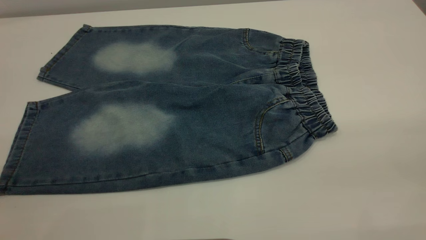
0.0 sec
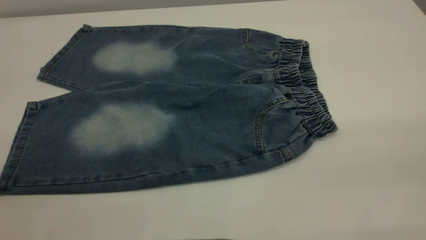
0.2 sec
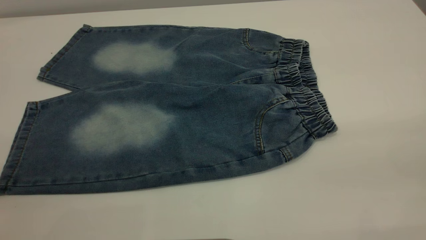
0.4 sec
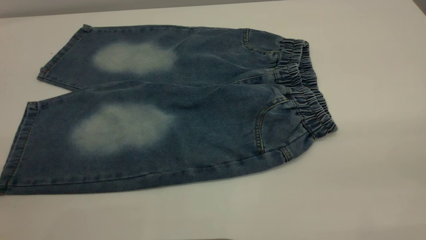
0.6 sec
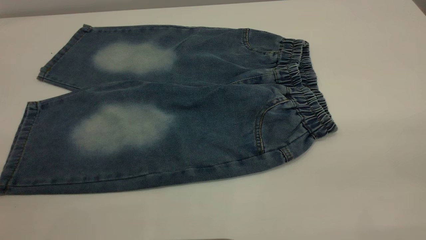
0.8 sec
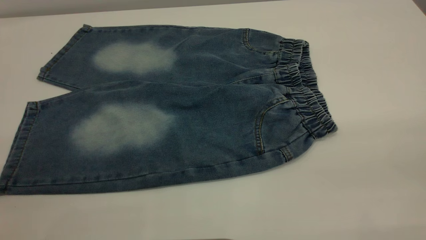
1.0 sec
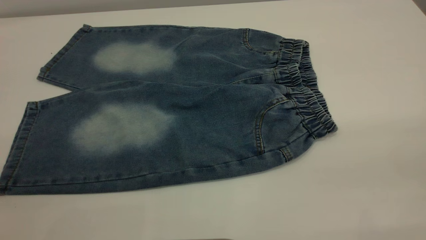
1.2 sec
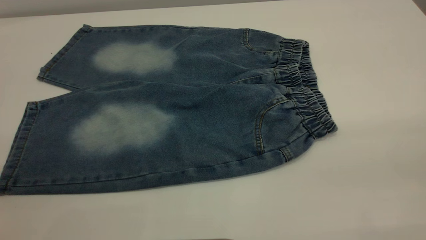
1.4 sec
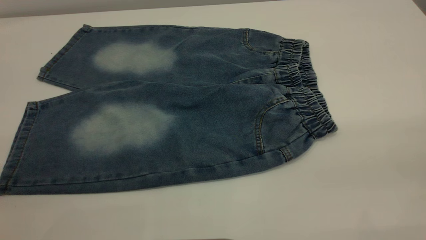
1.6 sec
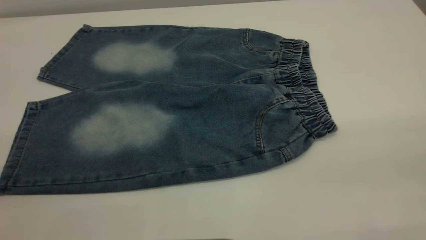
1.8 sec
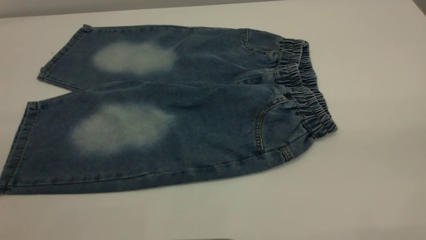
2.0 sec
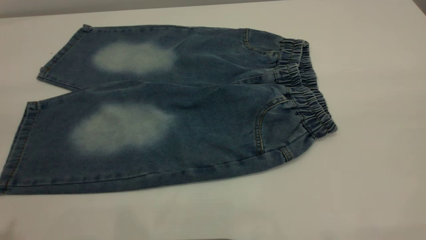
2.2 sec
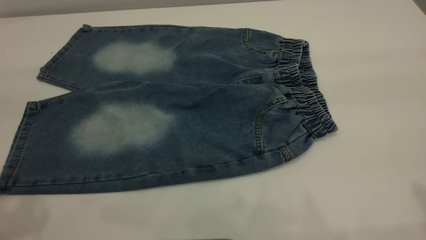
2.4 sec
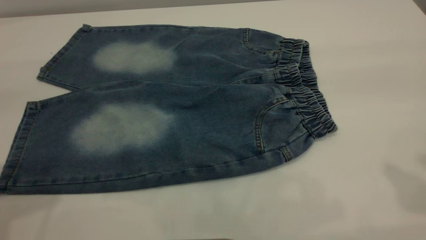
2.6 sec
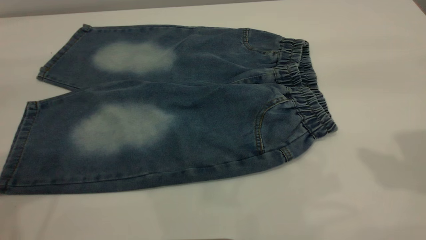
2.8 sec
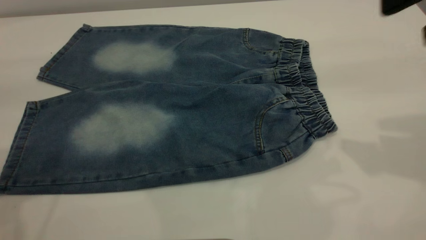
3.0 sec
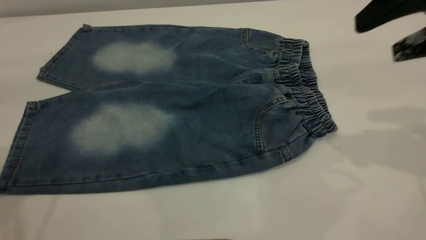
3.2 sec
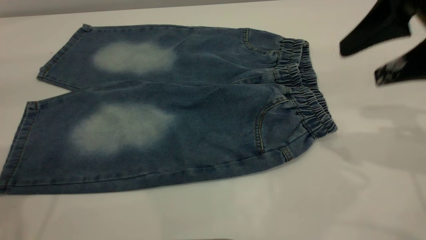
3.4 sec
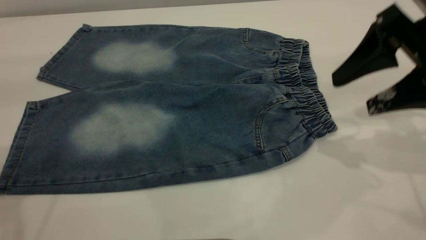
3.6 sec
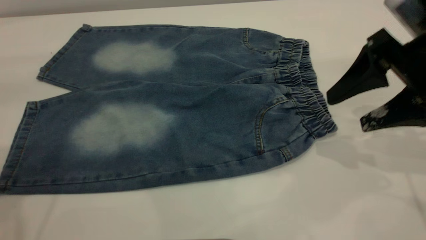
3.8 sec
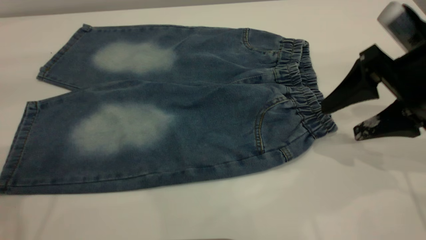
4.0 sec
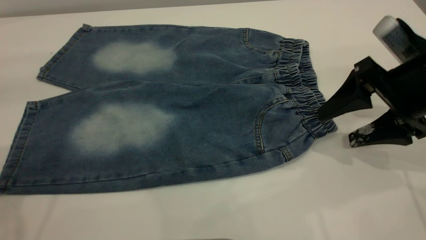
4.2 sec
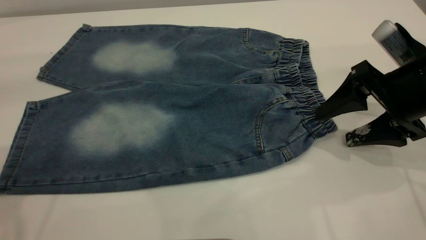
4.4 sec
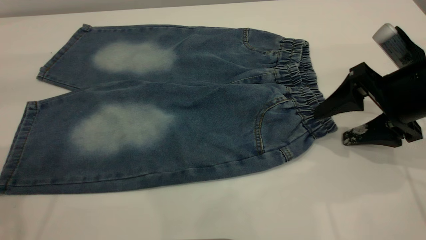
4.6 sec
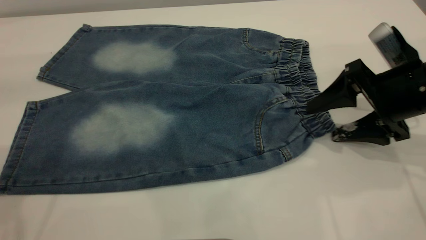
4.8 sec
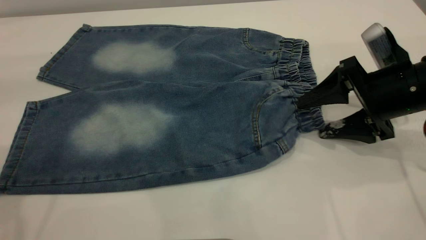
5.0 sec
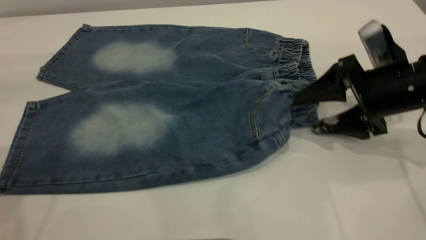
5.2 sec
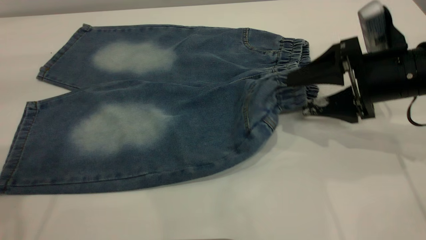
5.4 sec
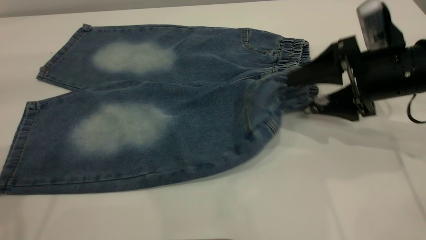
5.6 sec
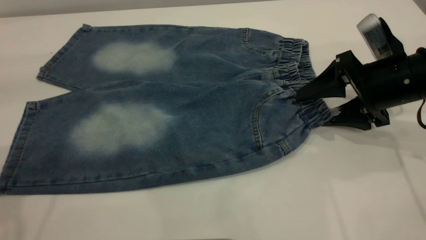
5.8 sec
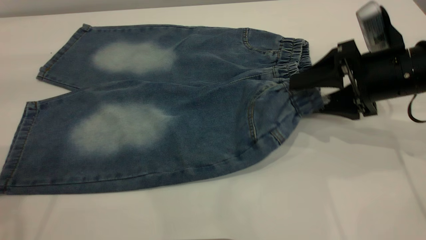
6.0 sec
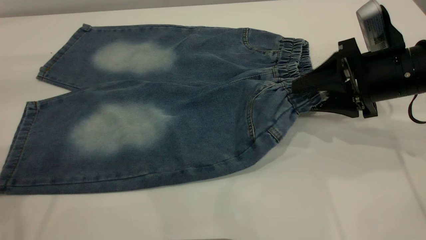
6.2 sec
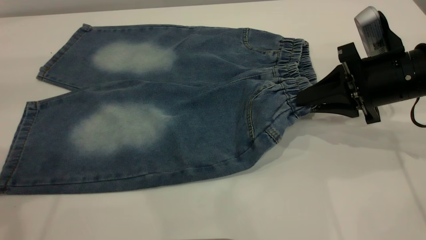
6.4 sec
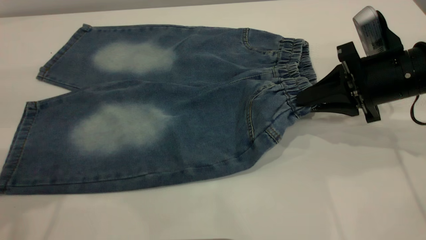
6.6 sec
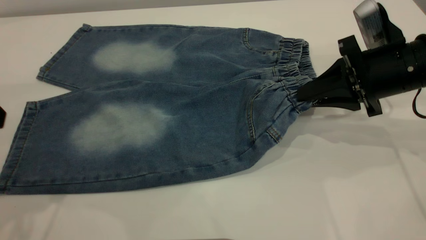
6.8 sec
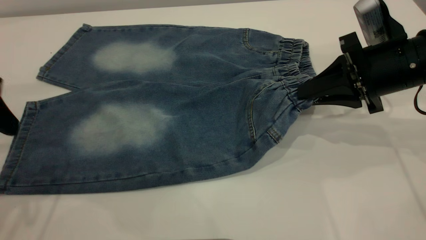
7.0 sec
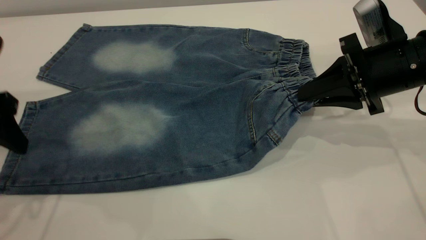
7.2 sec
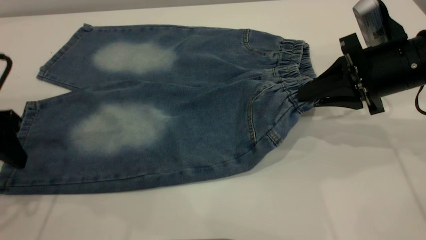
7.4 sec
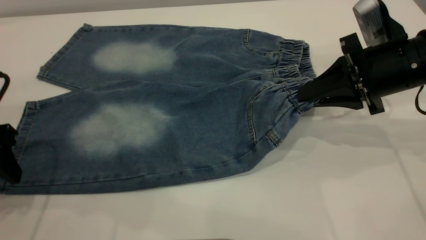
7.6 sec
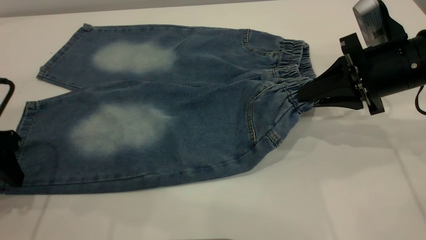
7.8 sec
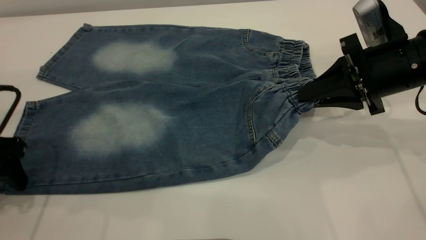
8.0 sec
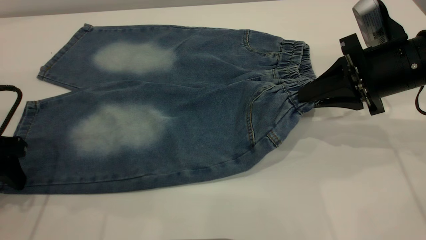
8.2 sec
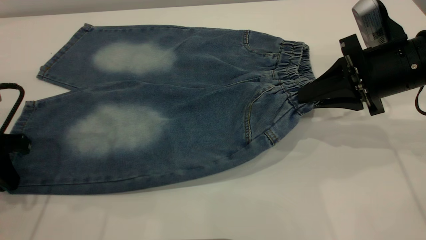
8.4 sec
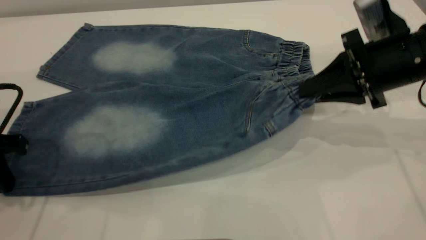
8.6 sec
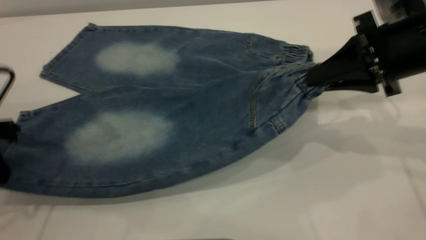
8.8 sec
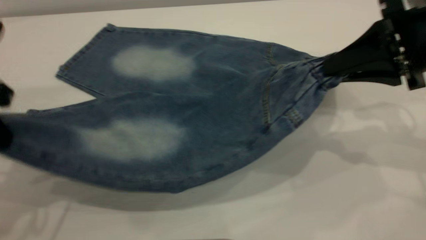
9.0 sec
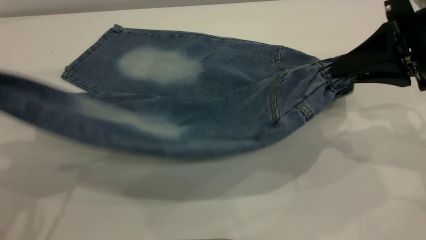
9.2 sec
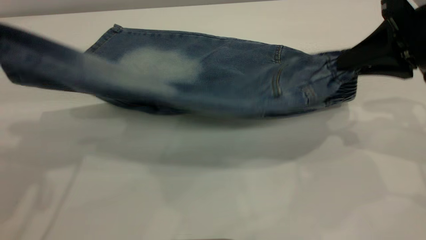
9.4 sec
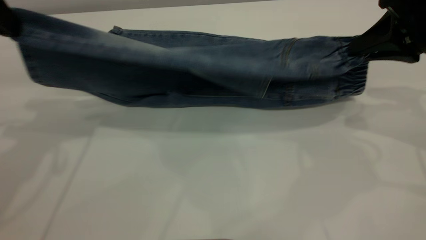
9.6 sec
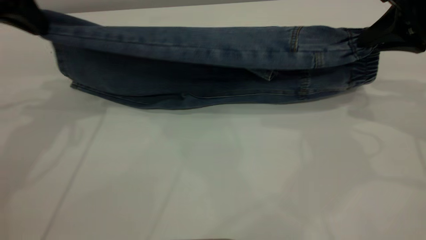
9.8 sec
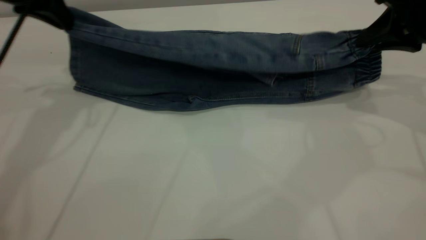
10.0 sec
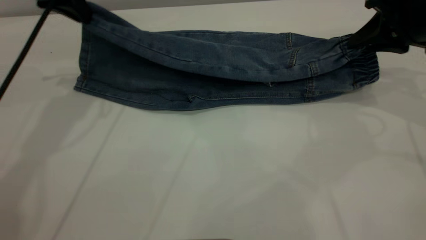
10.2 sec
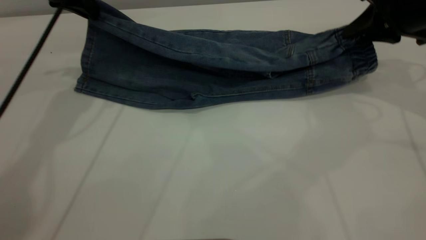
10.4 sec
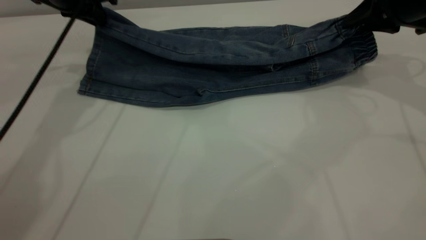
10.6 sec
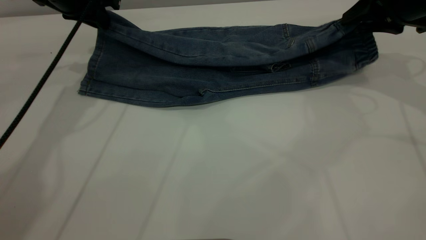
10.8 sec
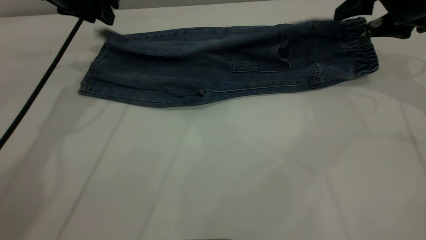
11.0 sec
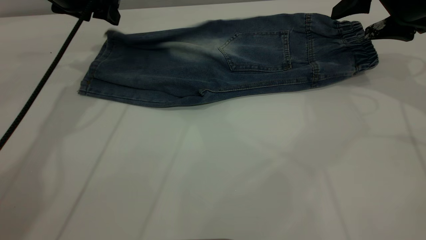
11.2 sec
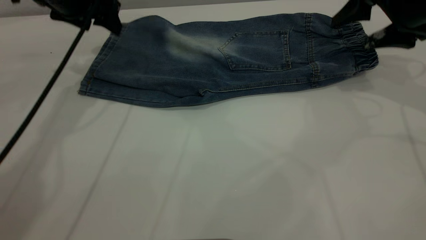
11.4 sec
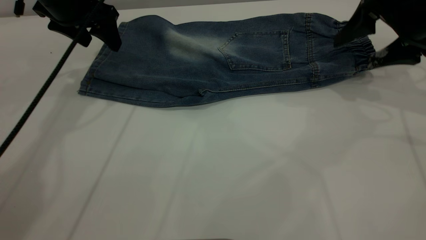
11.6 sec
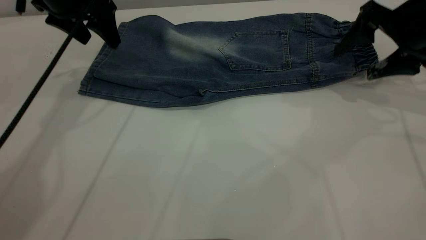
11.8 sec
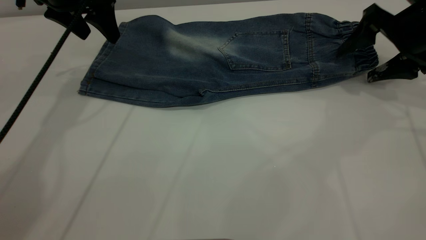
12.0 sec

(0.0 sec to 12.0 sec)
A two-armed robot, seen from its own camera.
Step, 0.0 sec - 11.6 sec: Fold the bottom of the pants upward.
0.0 sec - 1.6 sec: Both grippers stay about where they are.
3.0 sec - 4.4 sec: The right gripper heads downward, covering some 15 cm.
6.0 sec - 7.6 sec: The right gripper closes; the left gripper is displaced downward by some 20 cm.
7.6 sec - 9.0 sec: The grippers both shift upward by roughly 10 cm. The left gripper closes its fingers.
9.0 sec - 10.4 sec: The left gripper goes approximately 25 cm forward. The right gripper is displaced forward by roughly 10 cm.
10.4 sec - 12.0 sec: The right gripper opens, while the left gripper opens up.

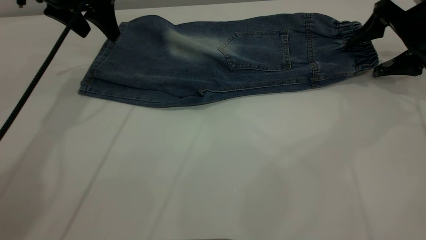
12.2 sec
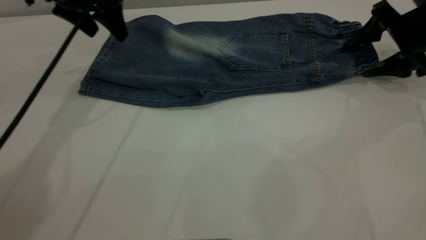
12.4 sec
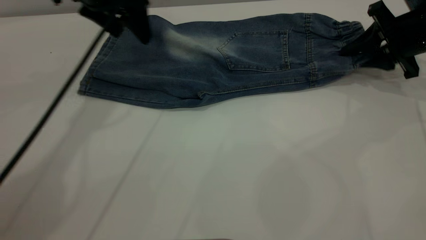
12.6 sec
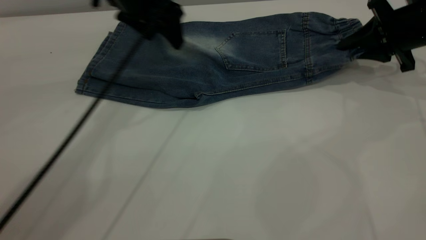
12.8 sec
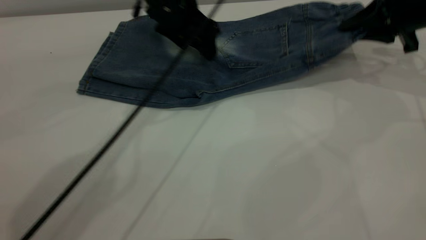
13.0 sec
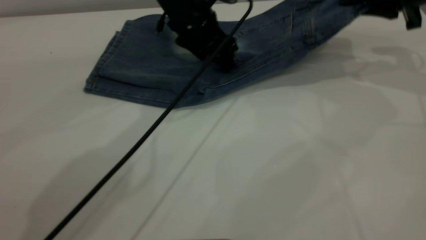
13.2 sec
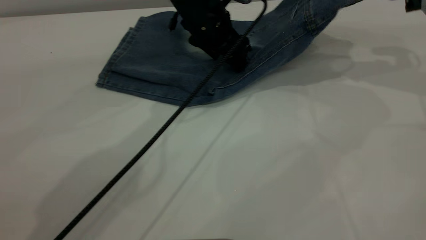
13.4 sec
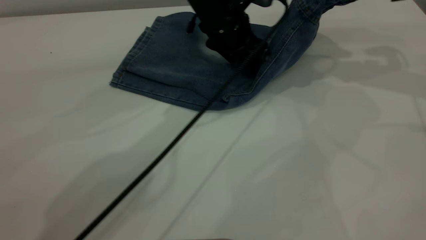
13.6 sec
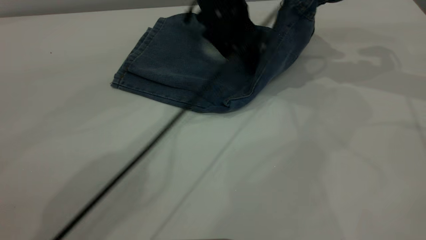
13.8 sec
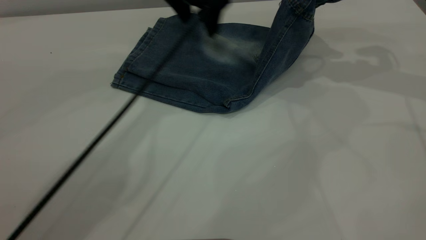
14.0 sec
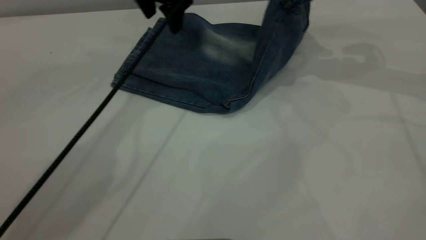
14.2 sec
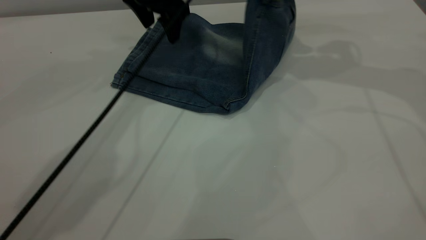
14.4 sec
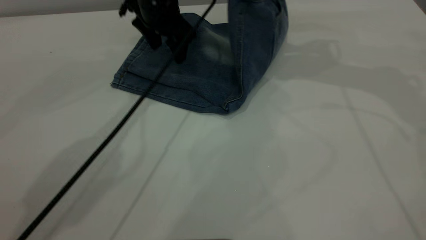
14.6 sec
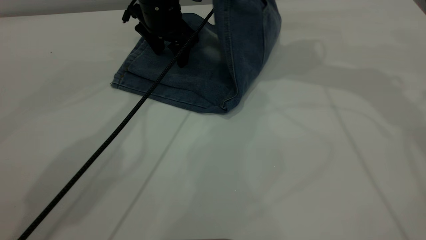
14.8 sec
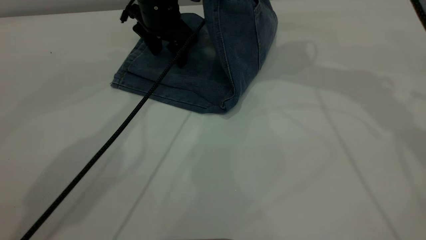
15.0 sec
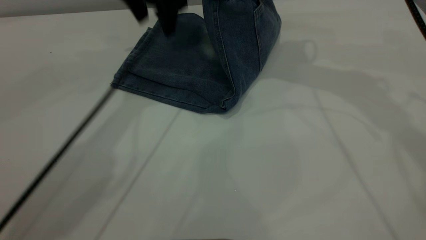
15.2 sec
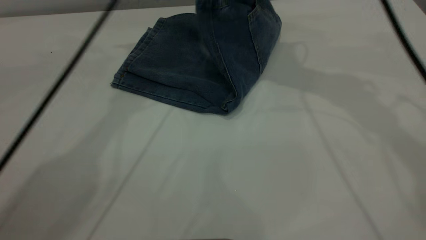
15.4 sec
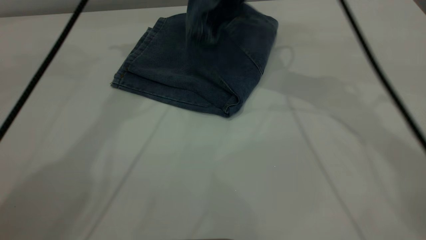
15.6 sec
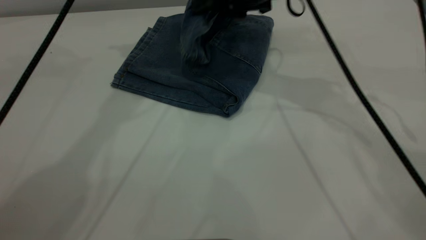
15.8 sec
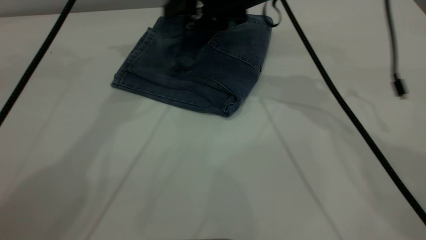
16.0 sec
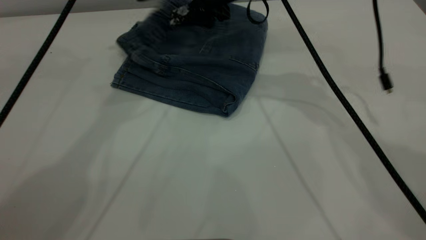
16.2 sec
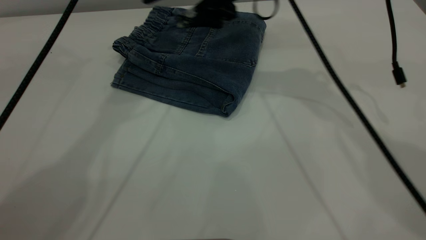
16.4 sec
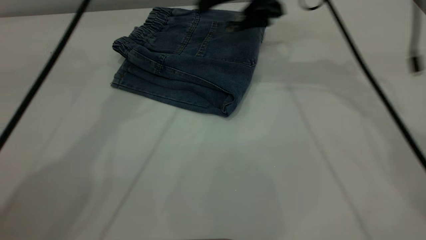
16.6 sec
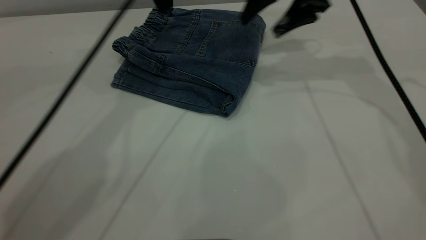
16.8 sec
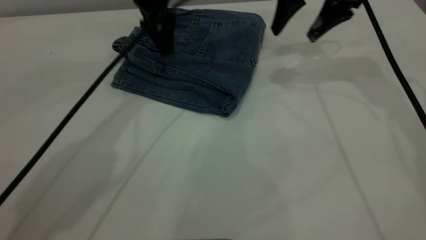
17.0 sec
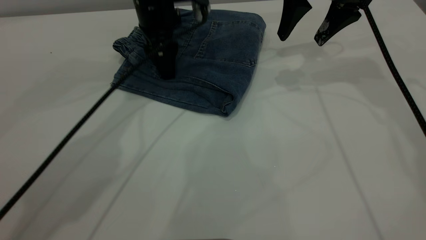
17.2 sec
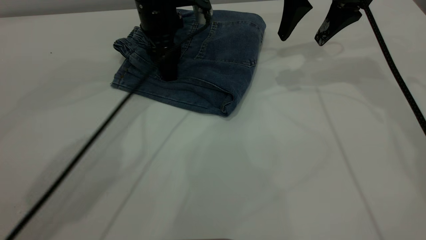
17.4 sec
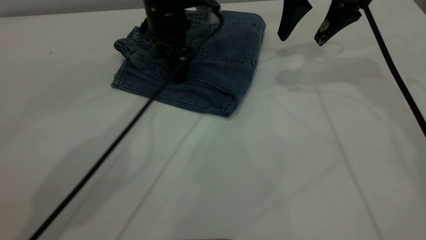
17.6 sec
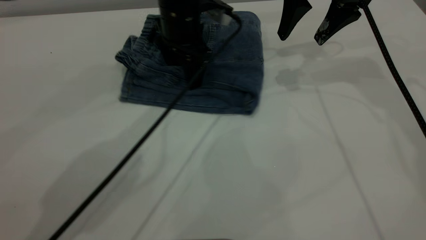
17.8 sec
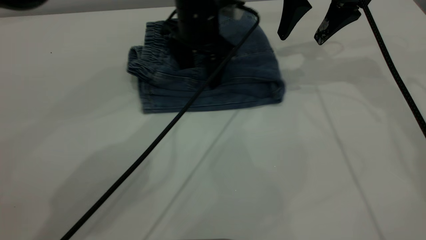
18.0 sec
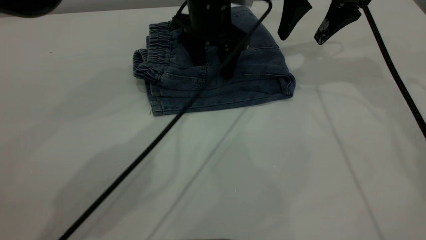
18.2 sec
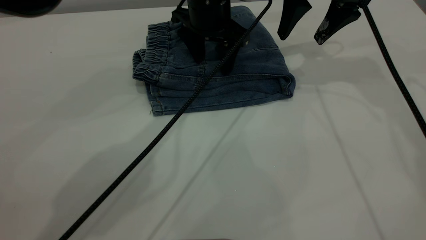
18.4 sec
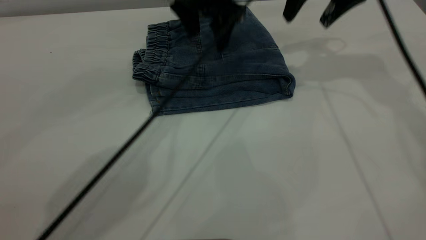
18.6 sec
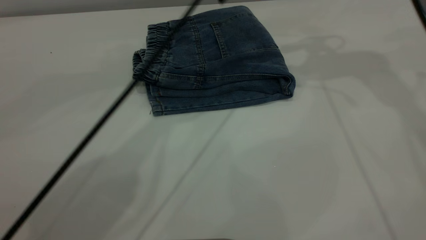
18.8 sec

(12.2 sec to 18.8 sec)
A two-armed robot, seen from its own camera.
Step, 12.2 sec - 16.2 sec: Fold your pants from right to left.
12.2 sec - 13.8 sec: The left gripper goes roughly 20 cm to the right, while the right gripper heads upward and to the left, covering approximately 10 cm, and closes.
13.8 sec - 15.4 sec: The right gripper heads to the left, covering approximately 15 cm, while the left gripper goes up and down, approximately 15 cm each way, reversing 2 times.
15.4 sec - 17.2 sec: The right gripper shifts about 5 cm to the right, and opens its fingers. The left gripper shifts roughly 15 cm downward.
17.2 sec - 18.8 sec: The right gripper travels upward by about 10 cm, while the left gripper goes some 15 cm upward and to the right.
